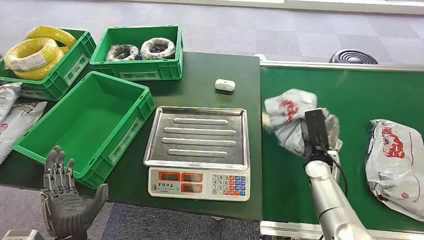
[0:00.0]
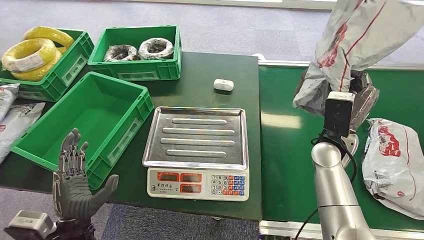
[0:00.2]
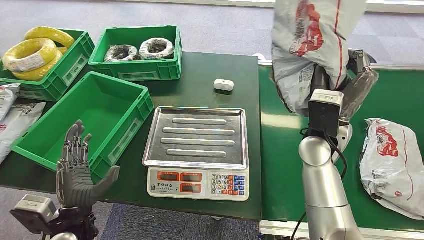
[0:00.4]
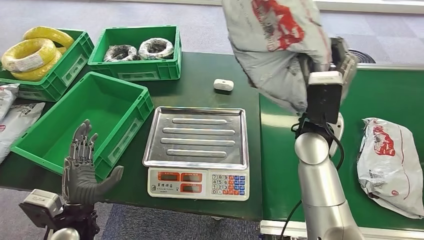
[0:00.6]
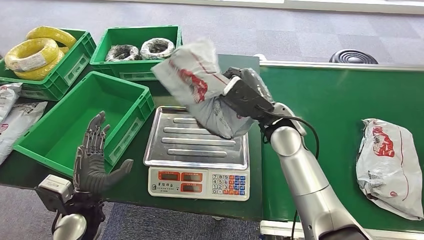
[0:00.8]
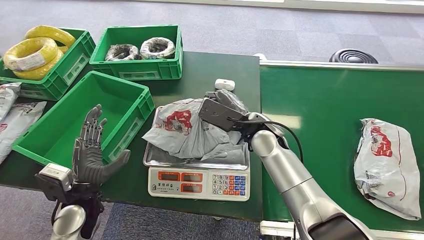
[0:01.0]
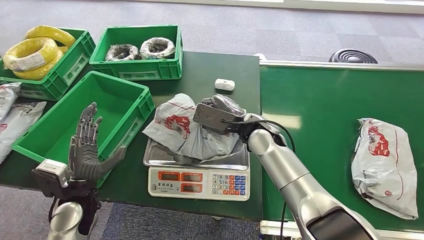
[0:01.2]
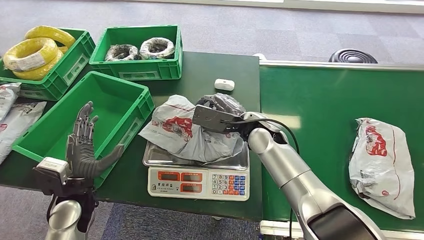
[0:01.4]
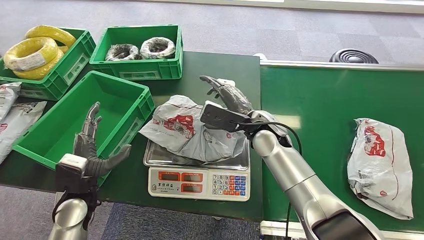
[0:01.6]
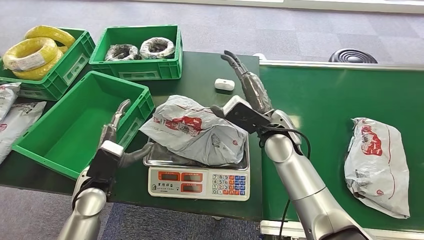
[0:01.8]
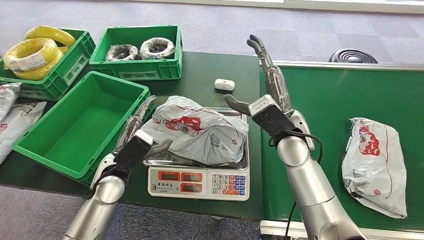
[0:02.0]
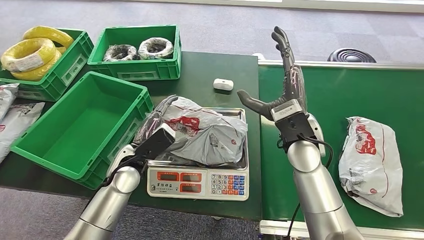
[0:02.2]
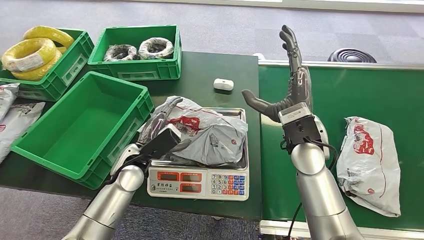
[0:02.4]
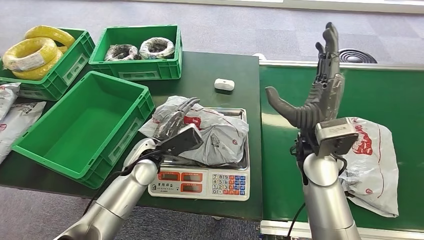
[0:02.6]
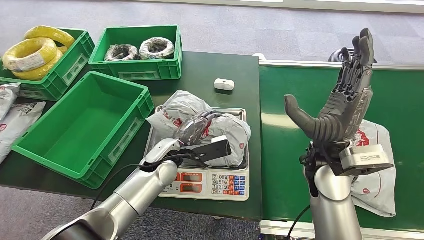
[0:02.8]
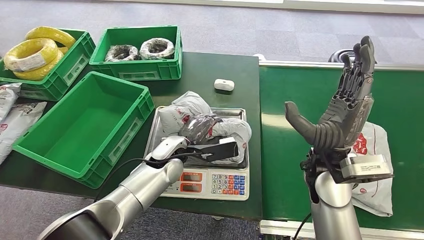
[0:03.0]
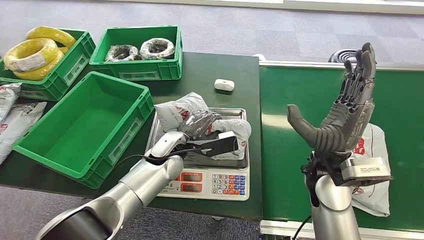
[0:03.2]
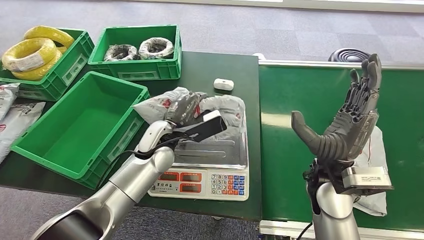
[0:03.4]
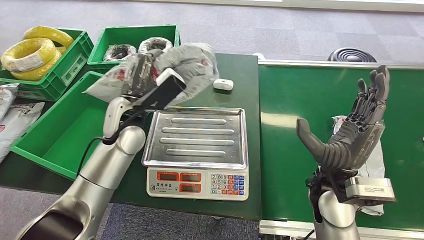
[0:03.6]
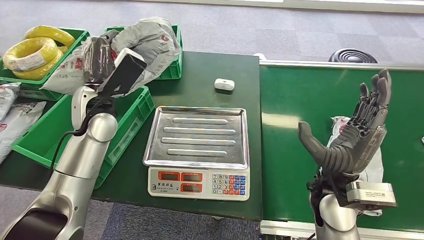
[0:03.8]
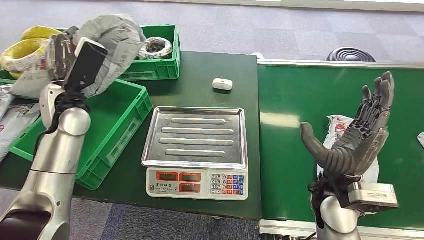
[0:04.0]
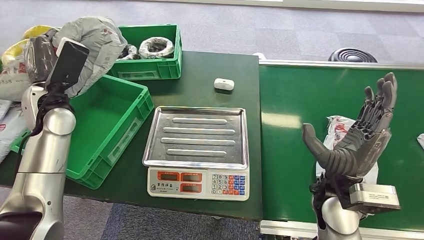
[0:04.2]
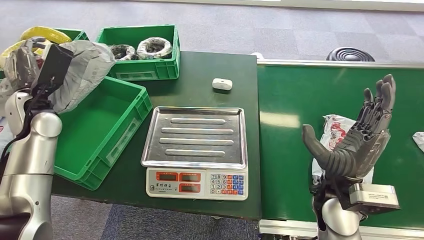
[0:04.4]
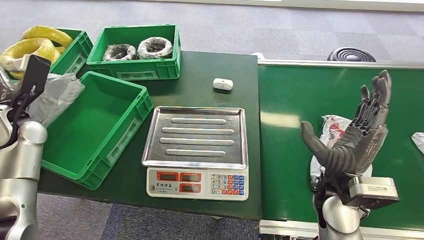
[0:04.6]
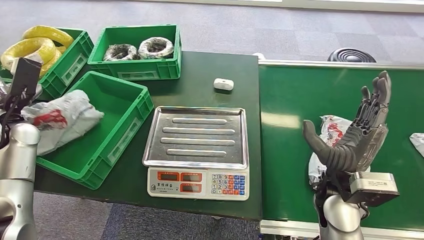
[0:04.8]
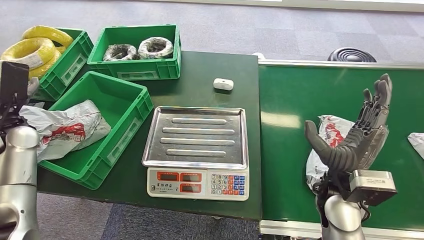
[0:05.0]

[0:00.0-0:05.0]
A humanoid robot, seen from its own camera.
Task of the whole recording: Weigh the package on the weighing device and place it in the left basket.
Step, 0:00.0 to 0:00.6: Pick up the package from the conveyor belt.
Step, 0:00.8 to 0:01.6: Place the package onto the inbound machine.
Step, 0:01.8 to 0:03.4: Pick up the package from the inbound machine.
Step, 0:03.6 to 0:05.0: Place the package into the parcel locker.

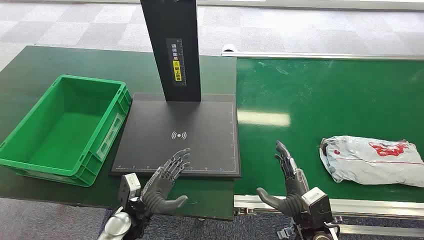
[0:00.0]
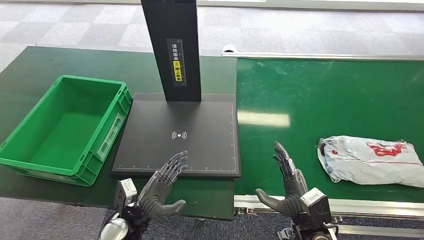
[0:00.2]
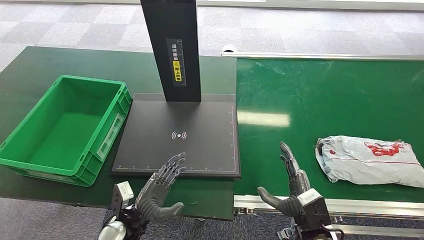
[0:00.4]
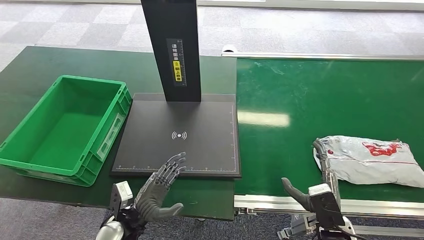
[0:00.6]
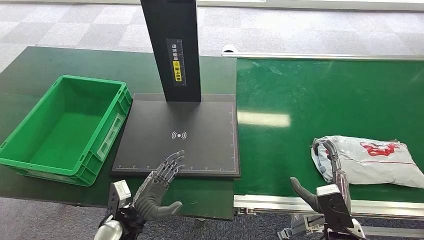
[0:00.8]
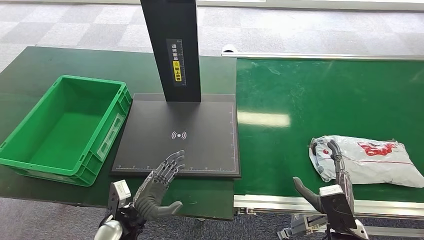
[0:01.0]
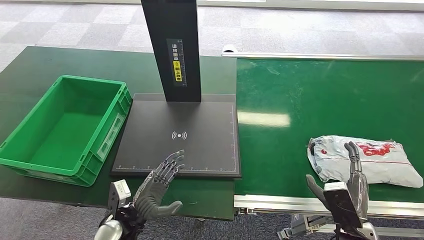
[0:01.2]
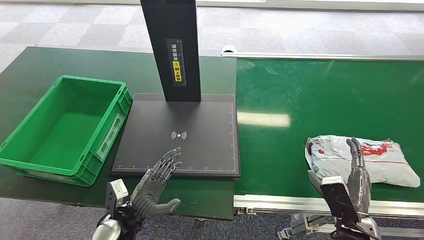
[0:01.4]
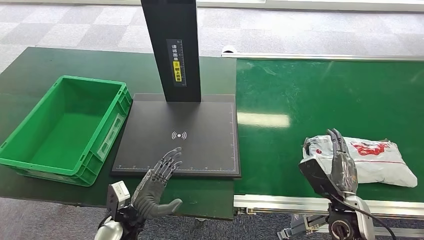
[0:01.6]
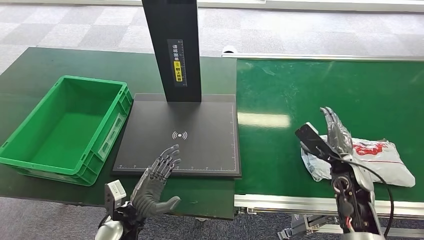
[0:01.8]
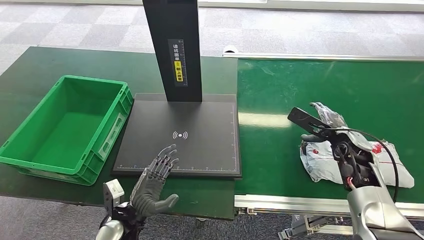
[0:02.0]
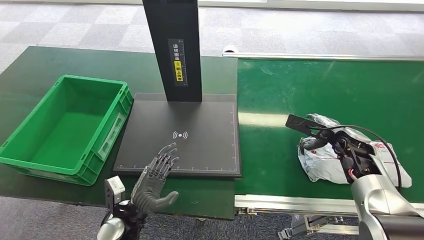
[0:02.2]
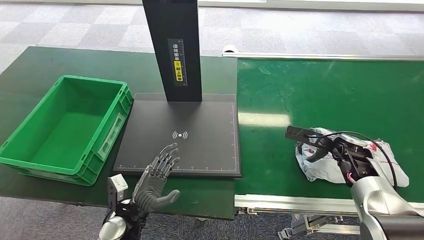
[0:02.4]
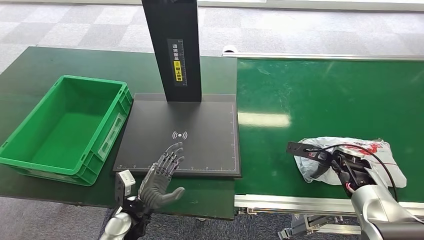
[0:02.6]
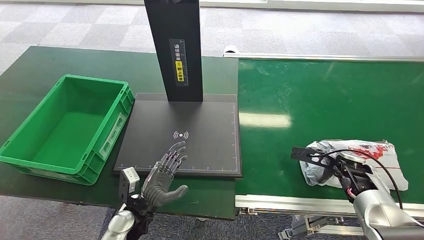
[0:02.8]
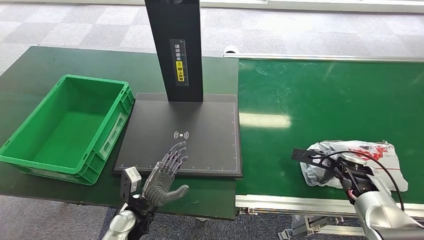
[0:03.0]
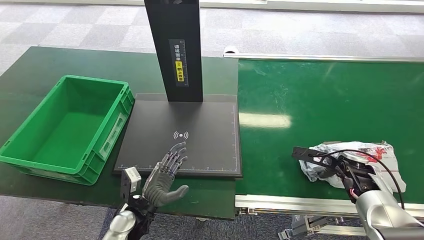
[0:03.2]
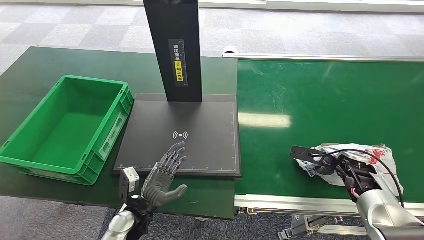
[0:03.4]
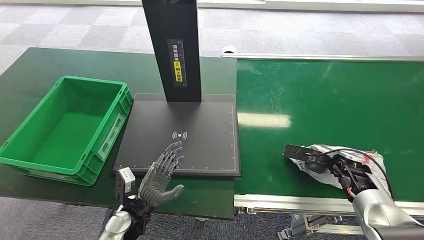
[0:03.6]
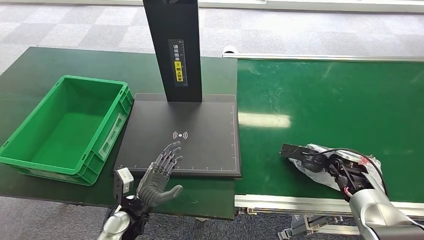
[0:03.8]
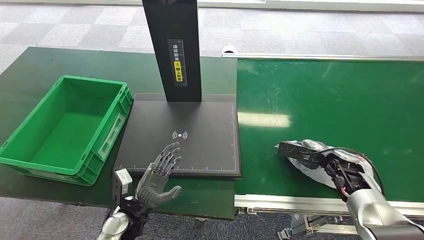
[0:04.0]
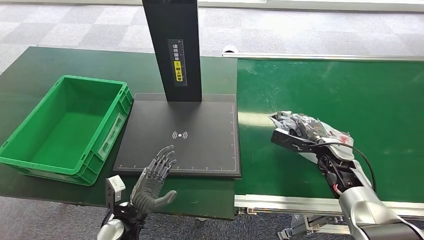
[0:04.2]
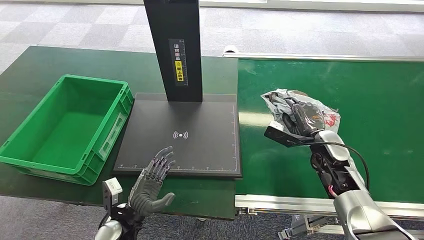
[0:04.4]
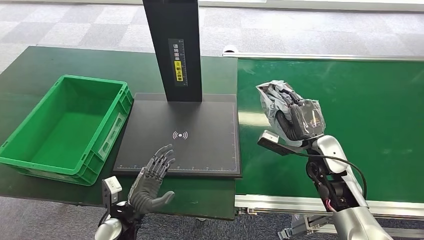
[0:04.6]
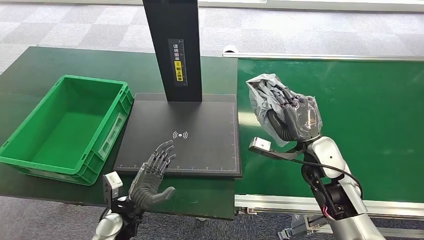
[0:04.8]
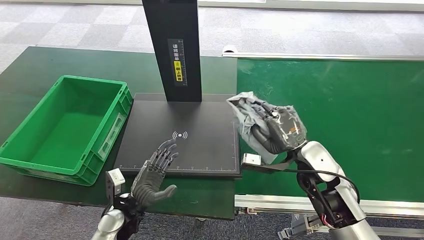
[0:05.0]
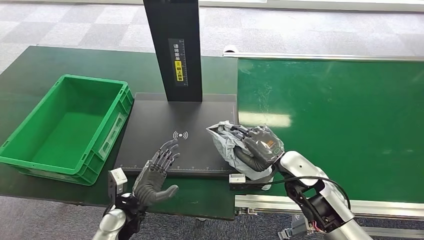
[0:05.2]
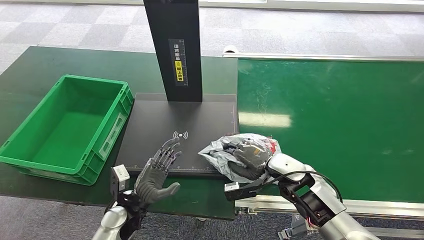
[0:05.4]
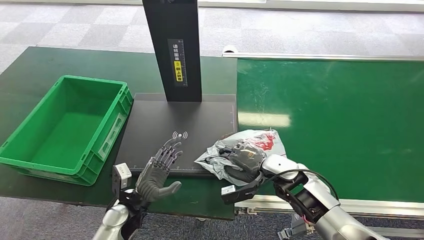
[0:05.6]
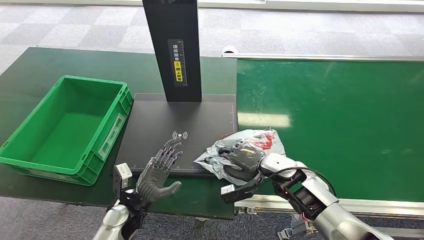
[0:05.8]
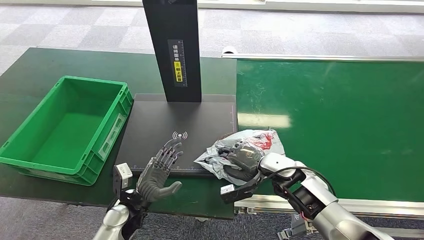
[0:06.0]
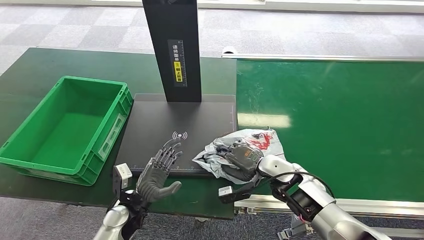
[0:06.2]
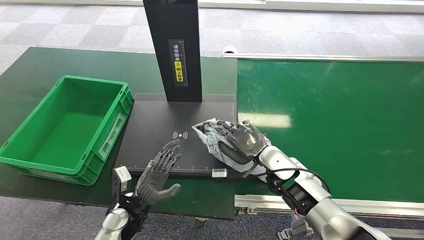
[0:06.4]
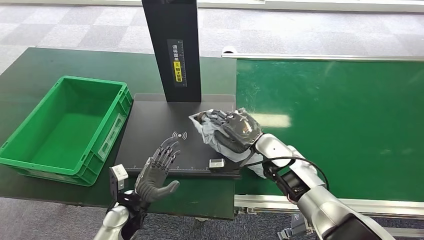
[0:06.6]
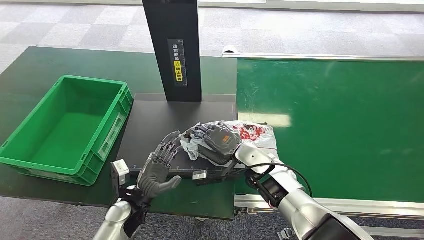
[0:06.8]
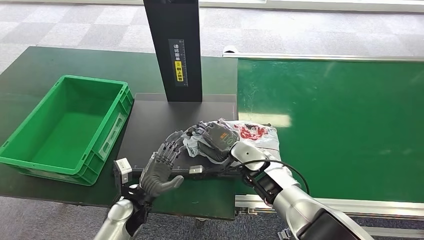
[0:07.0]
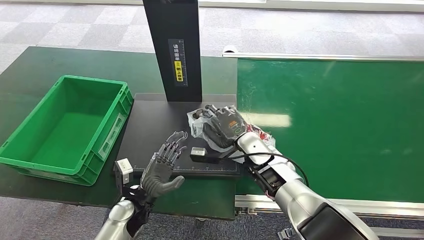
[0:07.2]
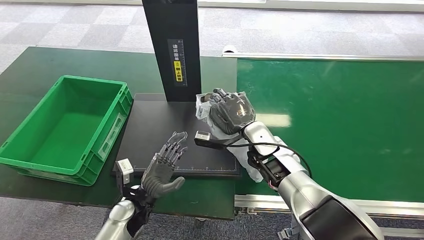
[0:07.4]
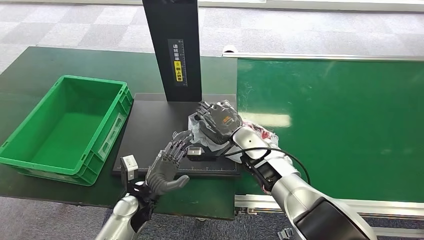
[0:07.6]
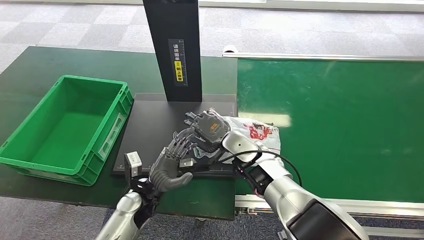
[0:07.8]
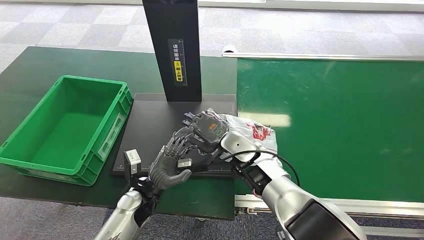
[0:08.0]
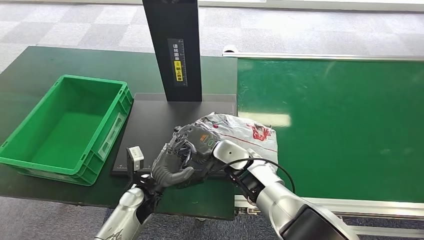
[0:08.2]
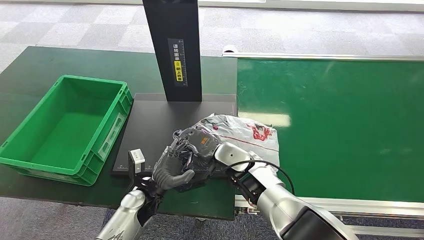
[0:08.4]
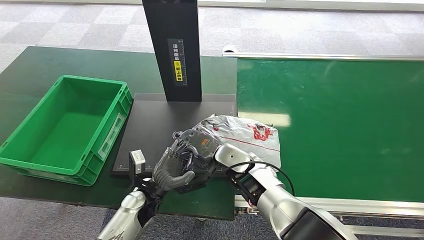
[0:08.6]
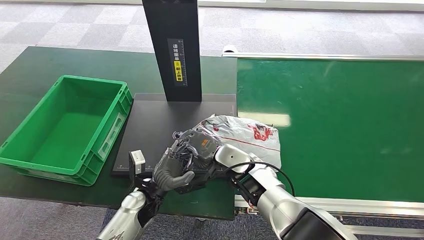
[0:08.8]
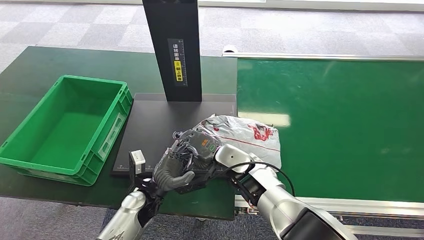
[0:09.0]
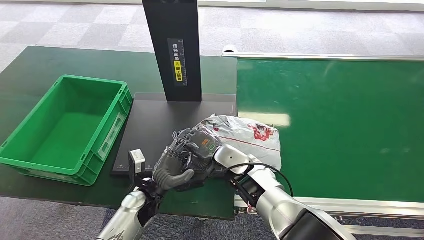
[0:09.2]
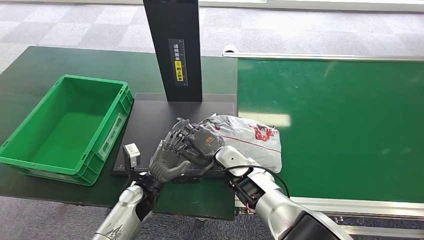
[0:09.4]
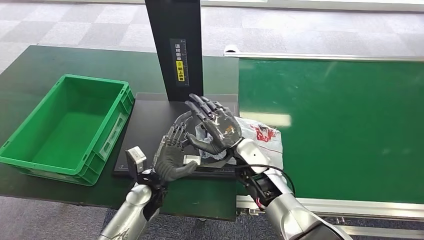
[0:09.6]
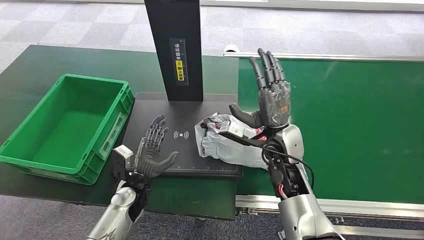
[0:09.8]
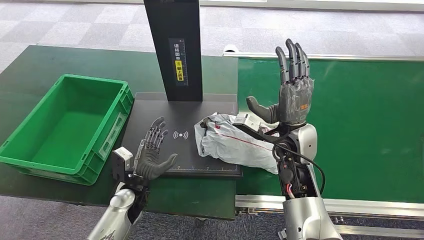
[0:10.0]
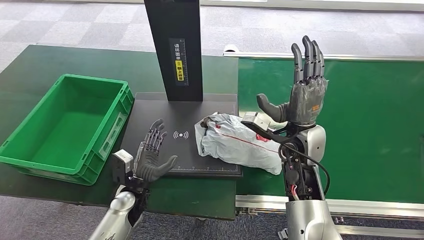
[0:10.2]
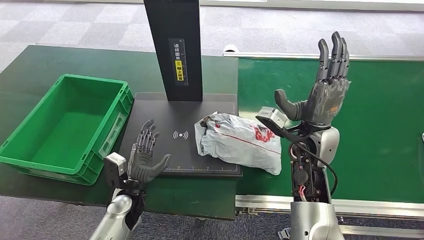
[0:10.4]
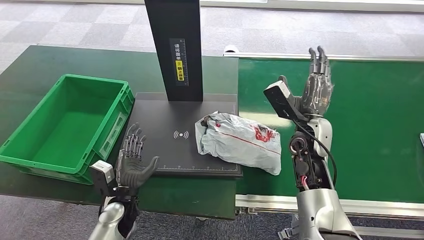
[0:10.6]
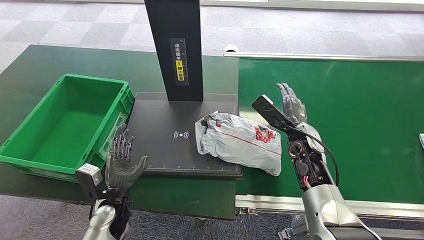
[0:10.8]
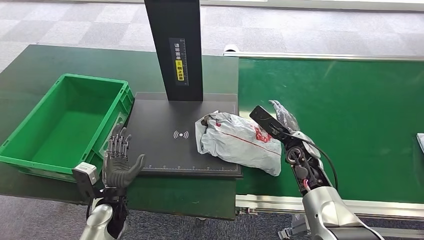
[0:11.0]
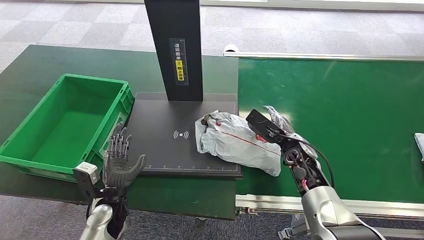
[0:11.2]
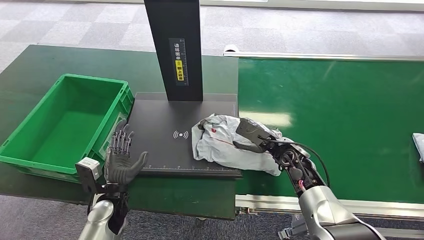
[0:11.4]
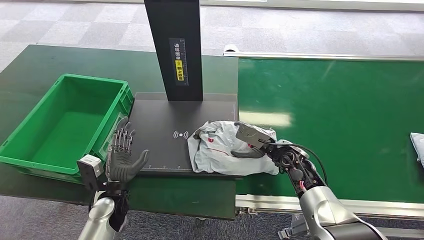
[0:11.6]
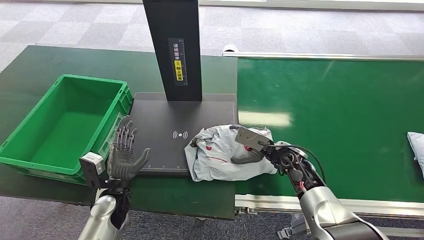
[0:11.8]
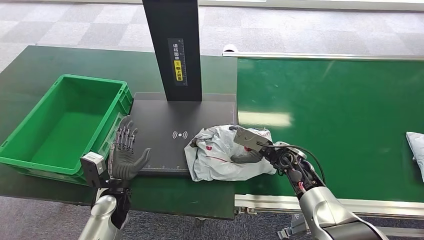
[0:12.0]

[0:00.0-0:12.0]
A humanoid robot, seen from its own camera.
Task of the whole recording: Weigh the package on the weighing device and place it in the left basket.
Step, 0:00.0 to 0:05.0: Pick up the package from the conveyor belt.
0:01.6 to 0:03.0: The right hand goes approximately 15 cm forward and to the right.
0:03.0 to 0:04.4: The right hand heads to the left, covering roughly 10 cm.
0:06.0 to 0:07.6: The right hand heads to the left and upward, covering roughly 10 cm.
0:07.6 to 0:09.0: The right hand shifts by some 5 cm.
0:09.0 to 0:10.4: The right hand goes roughly 15 cm to the right and upward.
0:10.4 to 0:12.0: The right hand heads downward, covering roughly 15 cm.
